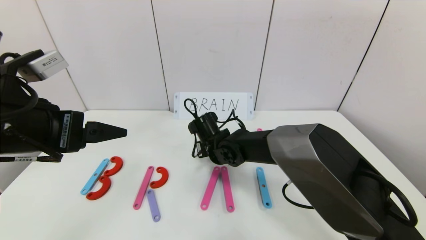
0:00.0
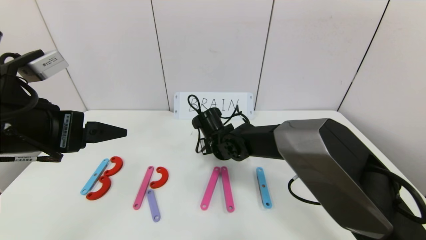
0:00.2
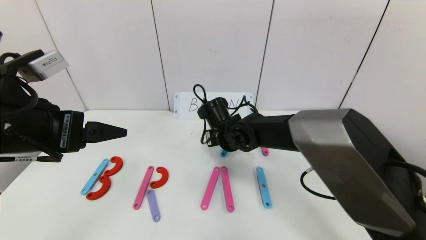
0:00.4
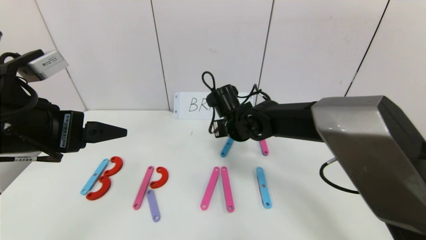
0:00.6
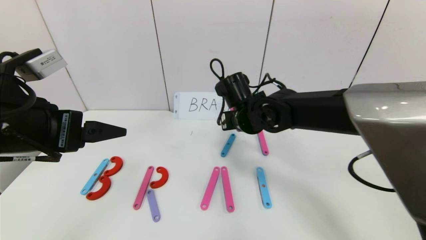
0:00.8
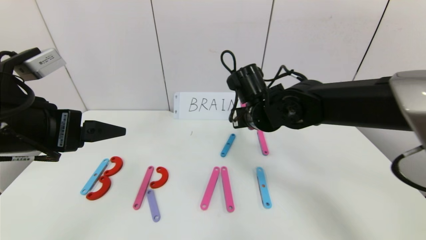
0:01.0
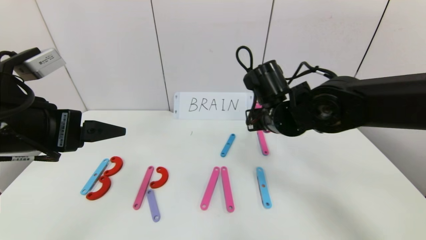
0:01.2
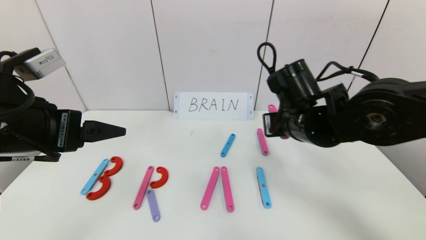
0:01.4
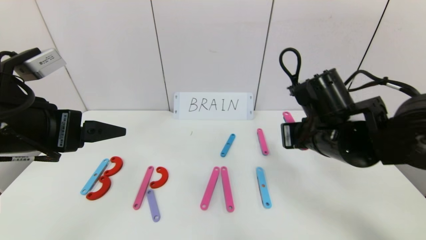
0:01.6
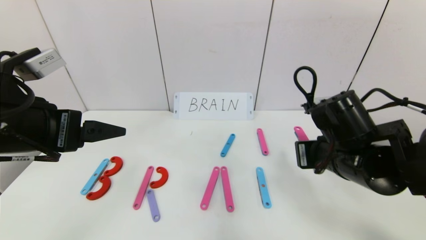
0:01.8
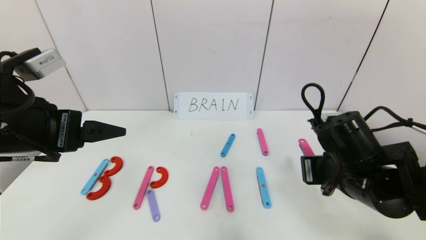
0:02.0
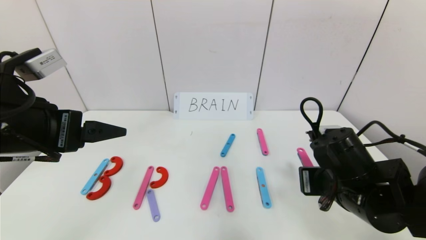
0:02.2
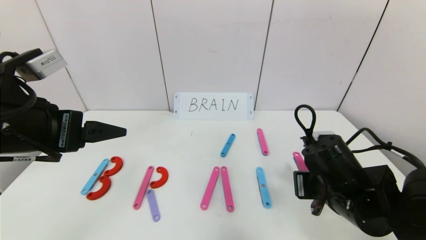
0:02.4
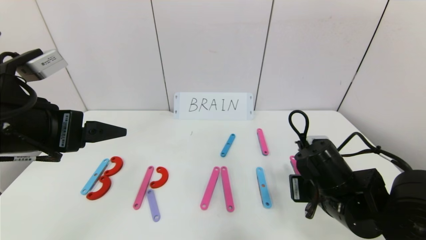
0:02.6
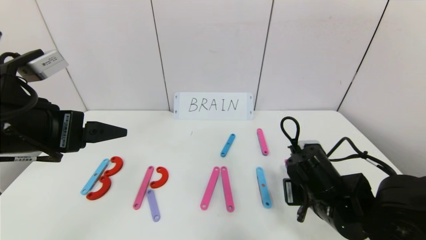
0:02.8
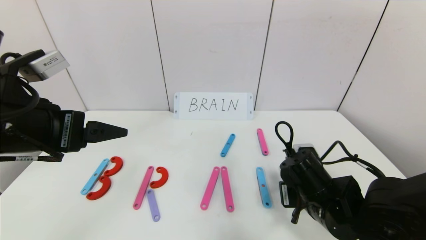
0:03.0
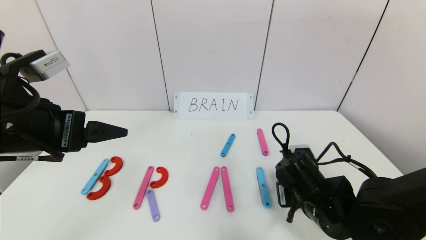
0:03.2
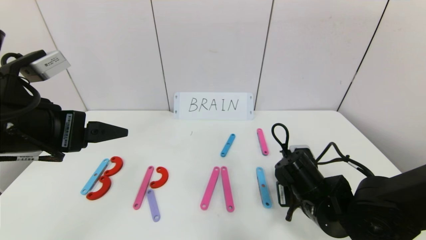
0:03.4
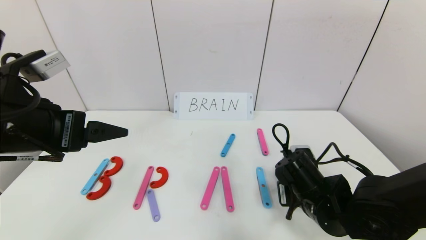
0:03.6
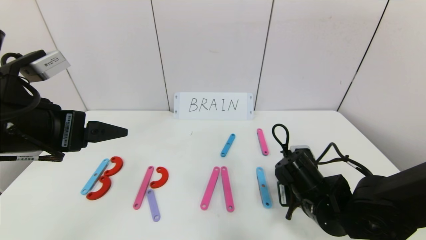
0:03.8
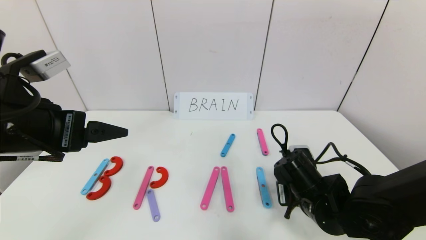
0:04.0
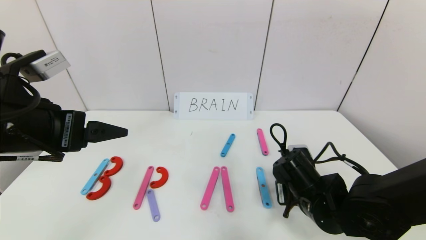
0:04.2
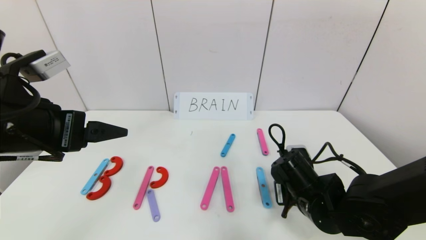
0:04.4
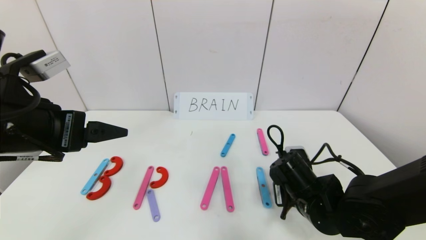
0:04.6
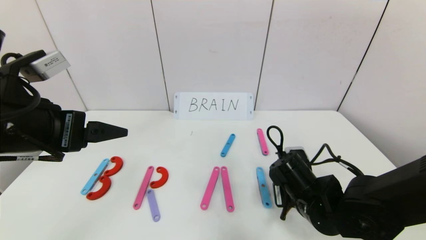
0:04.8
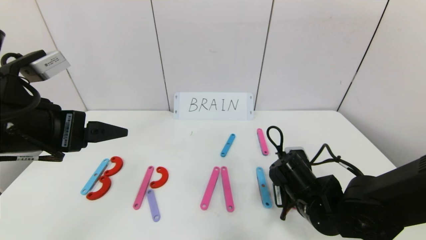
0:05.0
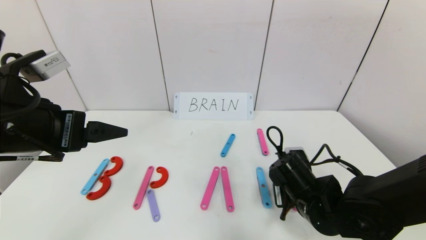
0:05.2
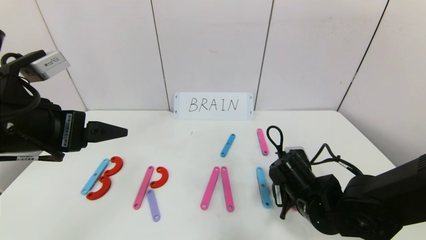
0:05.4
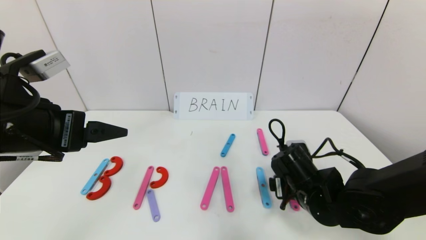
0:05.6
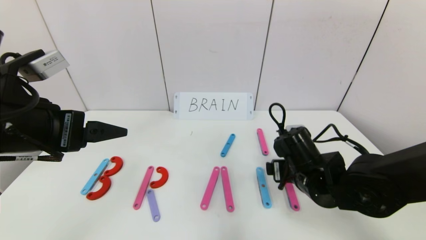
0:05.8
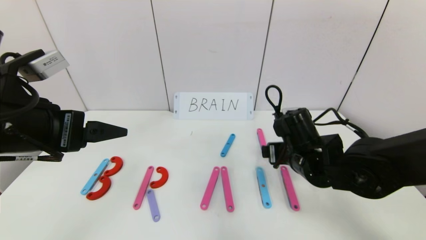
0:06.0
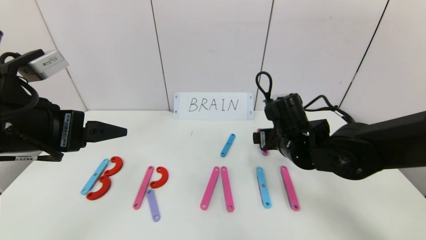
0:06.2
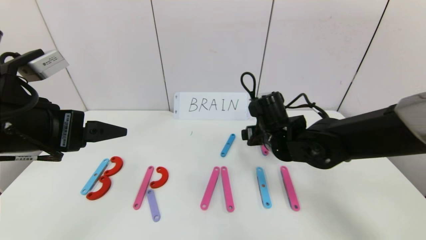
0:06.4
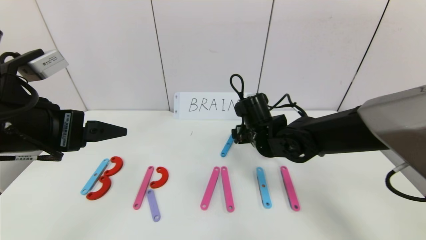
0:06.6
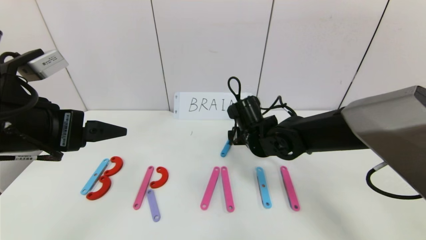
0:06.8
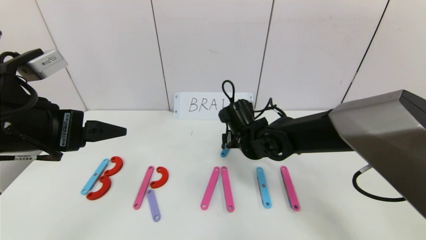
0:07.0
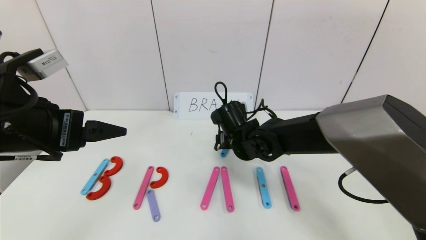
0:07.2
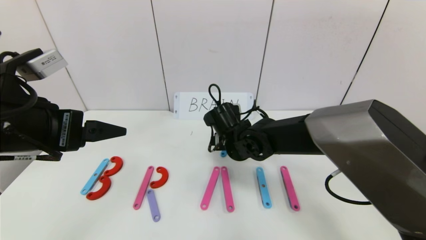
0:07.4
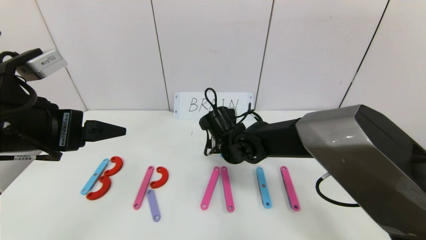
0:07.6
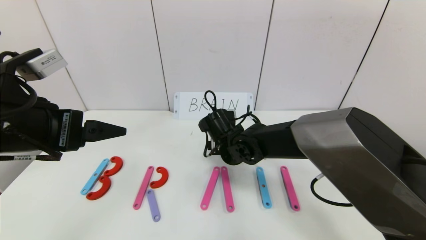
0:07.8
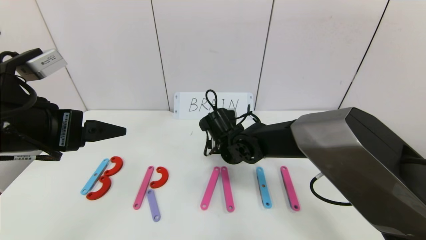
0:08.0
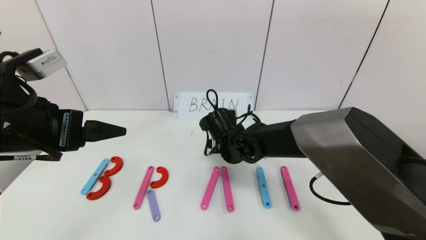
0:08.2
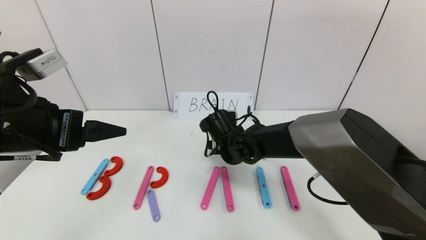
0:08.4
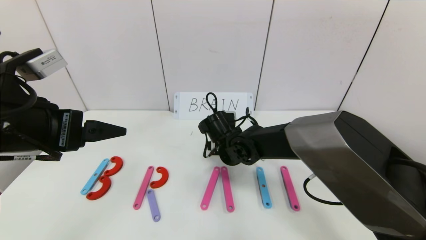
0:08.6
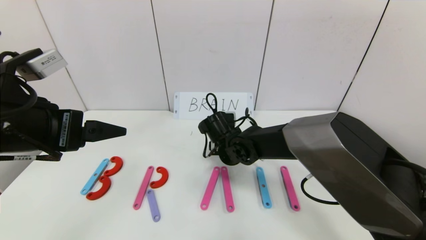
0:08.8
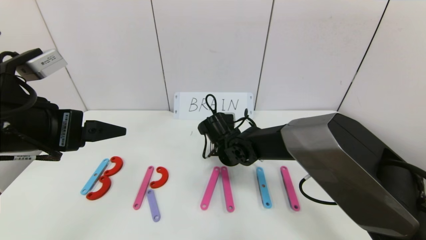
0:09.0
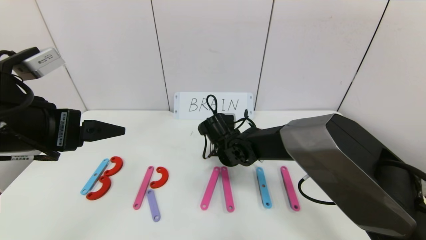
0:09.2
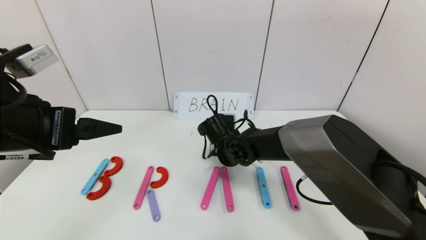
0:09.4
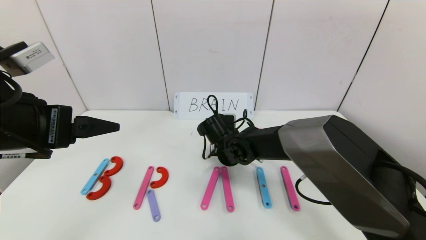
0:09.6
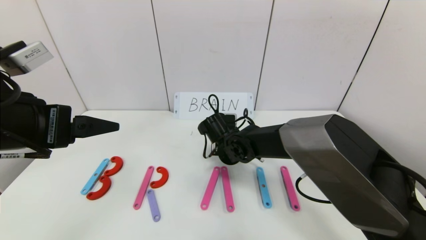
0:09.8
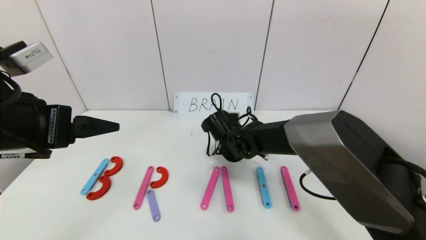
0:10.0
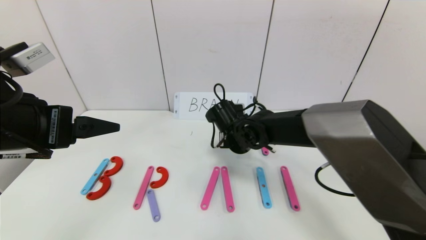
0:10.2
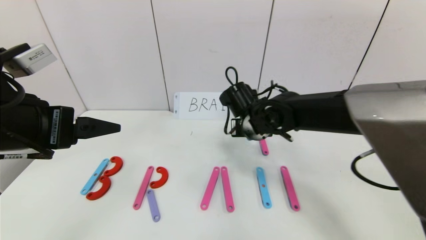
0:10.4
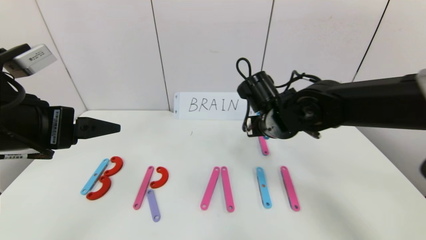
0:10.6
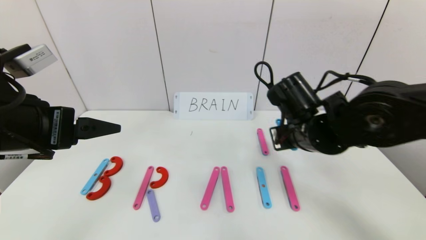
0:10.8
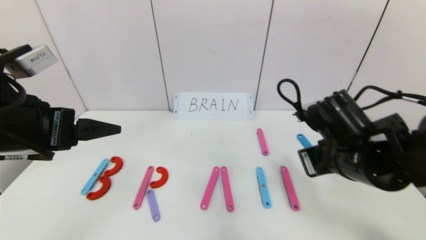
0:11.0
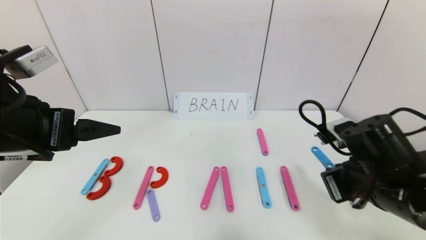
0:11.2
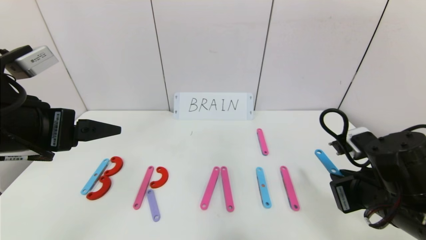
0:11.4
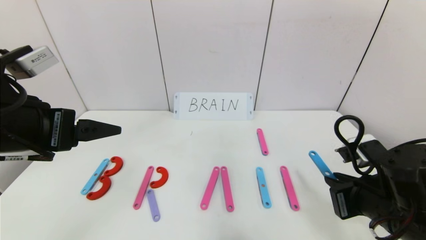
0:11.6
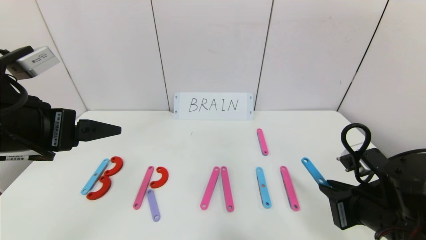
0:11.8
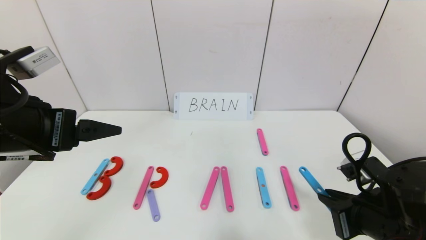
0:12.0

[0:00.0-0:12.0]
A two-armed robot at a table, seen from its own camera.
Task of the whole recording: rearrange the word baai as brain.
0:00.0 to 0:01.6: The right gripper heads to the right, upward and backward, covering about 25 cm.
0:01.6 to 0:03.0: The right gripper goes about 10 cm downward.
0:03.0 to 0:04.4: There are only small adjustments of the grippers.
0:04.4 to 0:06.0: The right gripper travels upward and forward by approximately 10 cm, and opens up.
0:06.0 to 0:07.6: The right gripper shifts some 15 cm to the left and forward.
0:07.6 to 0:09.0: The right gripper closes.
0:09.0 to 0:10.4: The right gripper shifts about 10 cm upward and to the right, and closes its fingers.
0:10.4 to 0:12.0: The right gripper is displaced backward and to the right by approximately 25 cm.

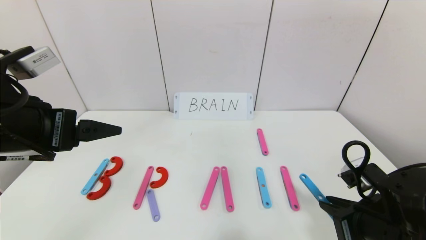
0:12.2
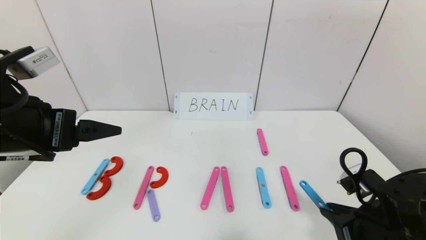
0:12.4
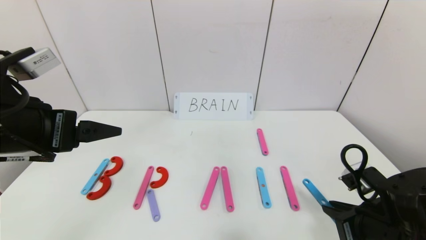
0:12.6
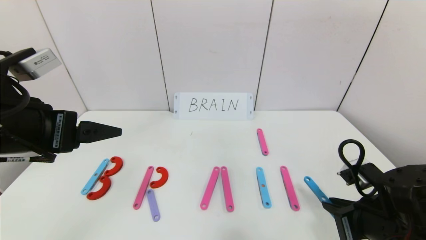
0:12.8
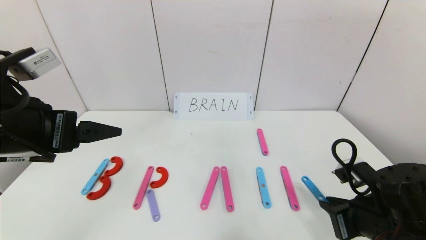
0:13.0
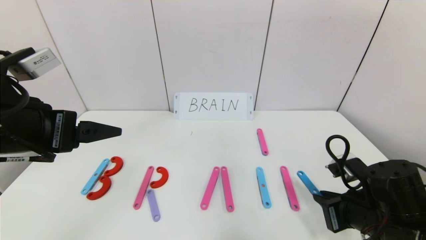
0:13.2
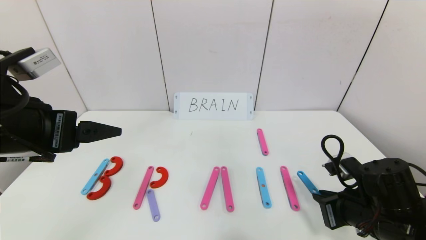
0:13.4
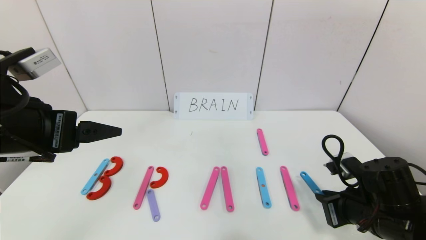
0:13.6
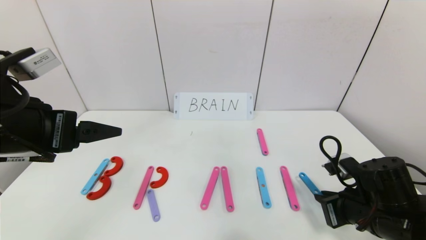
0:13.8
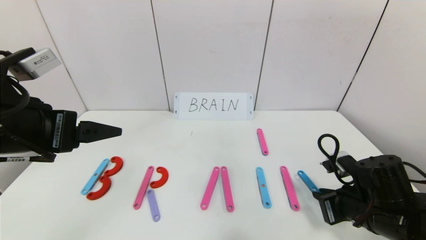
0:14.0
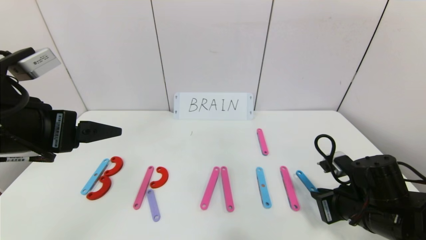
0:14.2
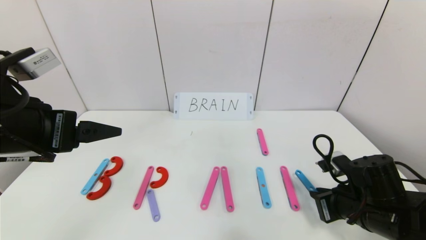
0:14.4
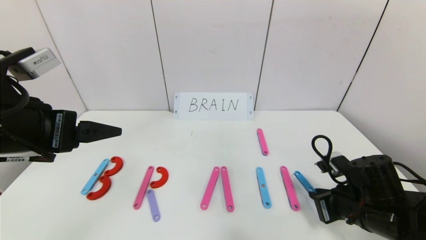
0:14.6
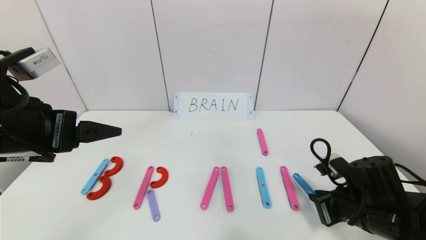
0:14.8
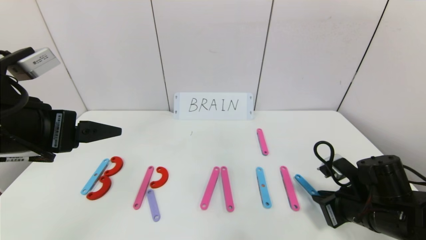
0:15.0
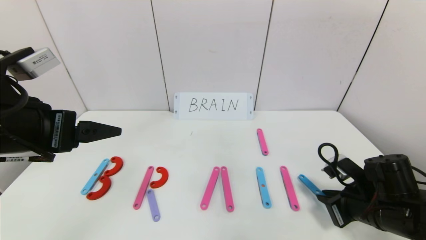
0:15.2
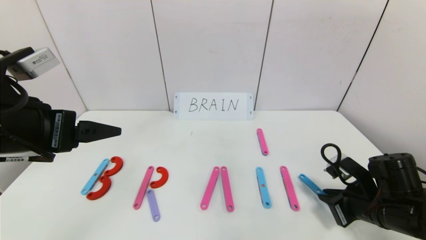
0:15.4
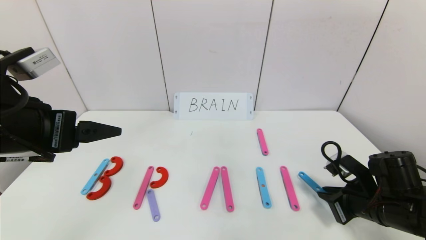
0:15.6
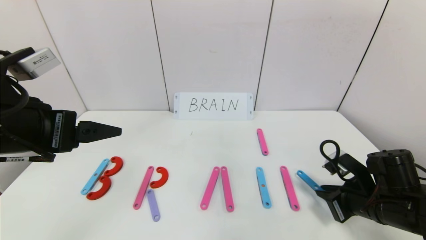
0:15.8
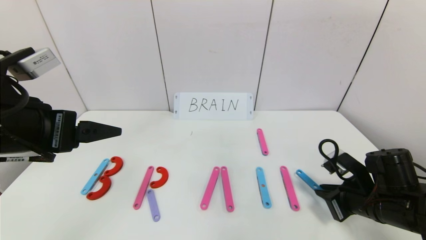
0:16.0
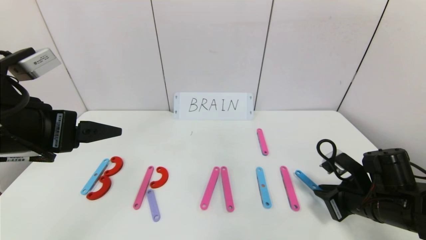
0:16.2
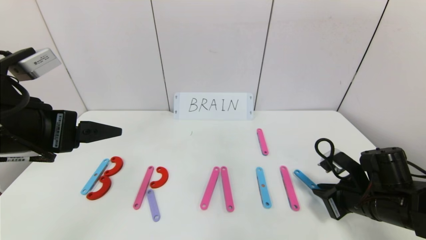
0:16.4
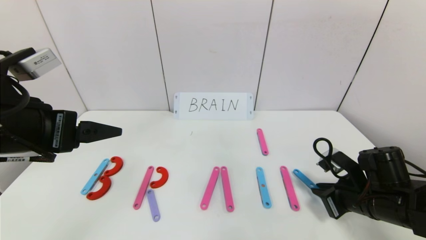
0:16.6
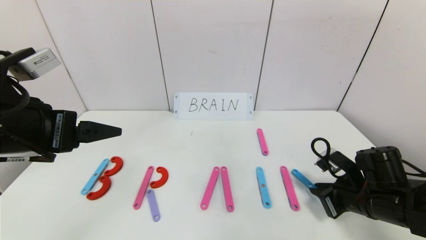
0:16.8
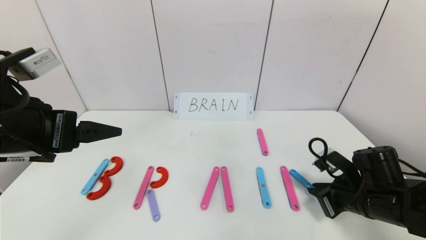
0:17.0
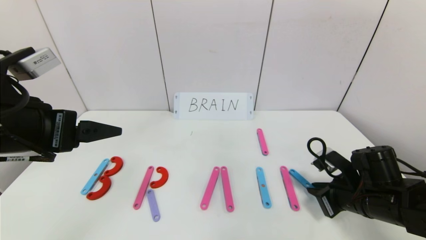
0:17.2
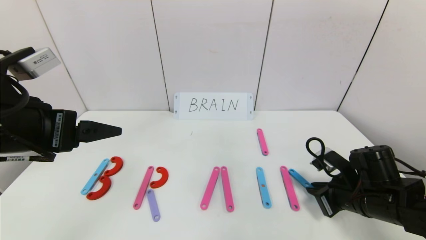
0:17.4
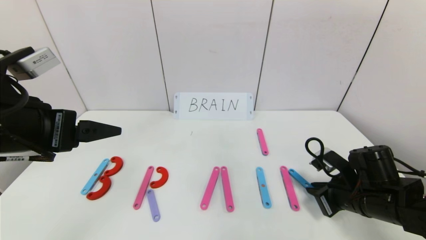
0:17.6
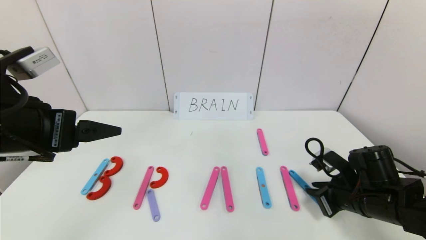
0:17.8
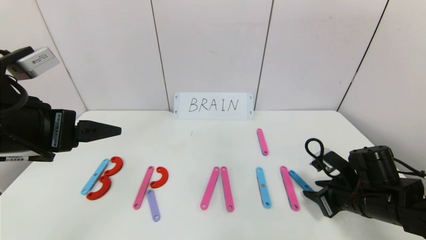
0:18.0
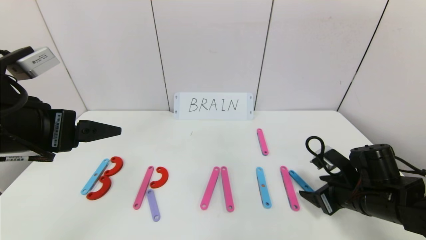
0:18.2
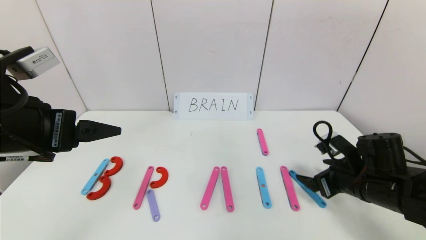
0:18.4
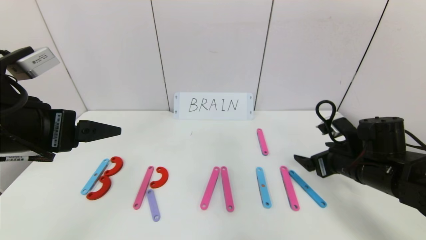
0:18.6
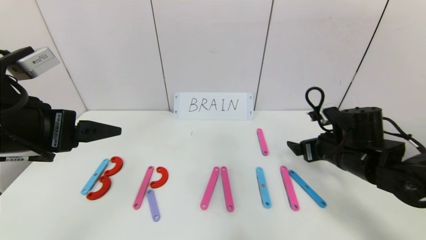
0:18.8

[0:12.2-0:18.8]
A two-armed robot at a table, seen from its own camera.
Task of the whole recording: rearrange the word baai as brain.
0:12.2 to 0:13.8: The right gripper ends up about 5 cm from where it was.
0:13.8 to 0:17.2: The grippers stay close to where they were, moving slightly.
0:17.2 to 0:18.8: The right gripper is displaced forward and upward by approximately 10 cm, and opens.
